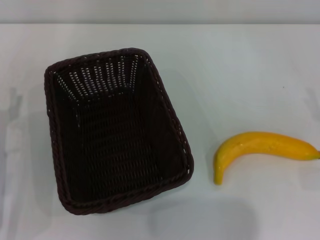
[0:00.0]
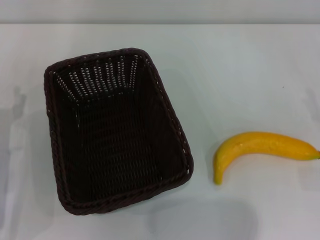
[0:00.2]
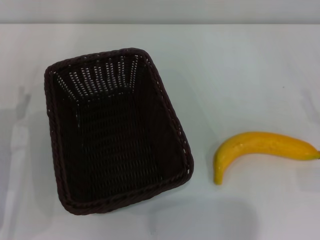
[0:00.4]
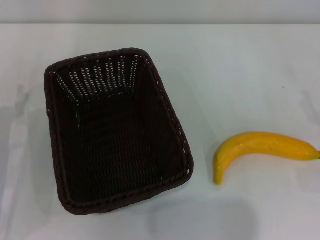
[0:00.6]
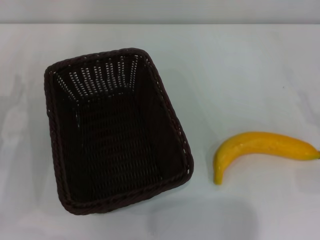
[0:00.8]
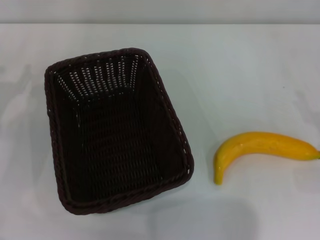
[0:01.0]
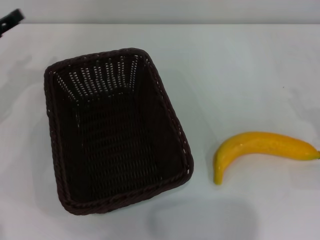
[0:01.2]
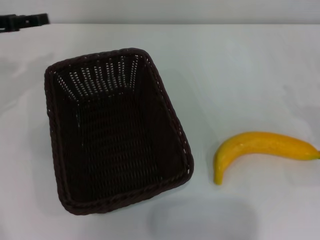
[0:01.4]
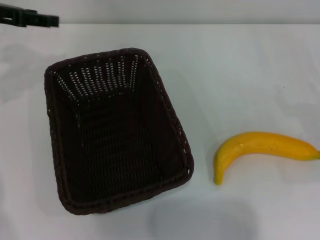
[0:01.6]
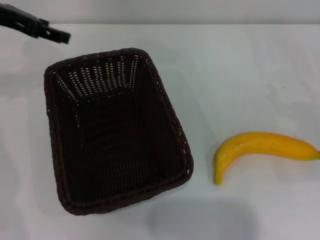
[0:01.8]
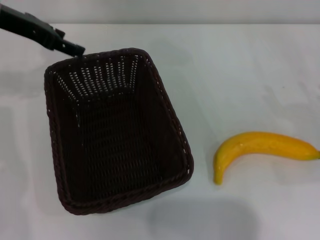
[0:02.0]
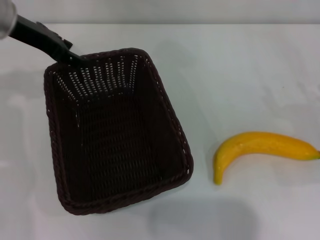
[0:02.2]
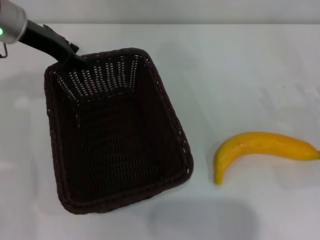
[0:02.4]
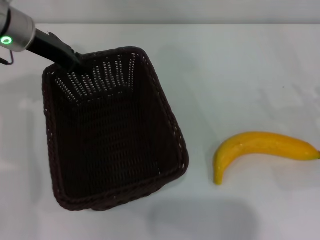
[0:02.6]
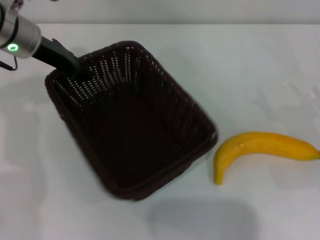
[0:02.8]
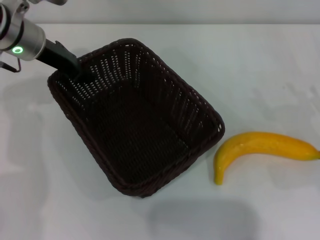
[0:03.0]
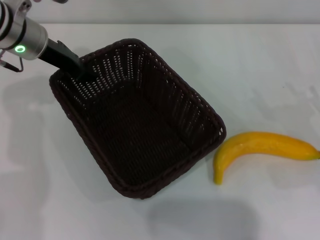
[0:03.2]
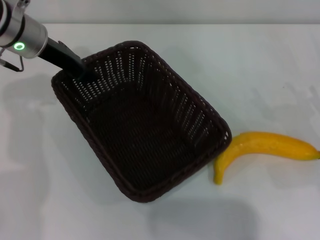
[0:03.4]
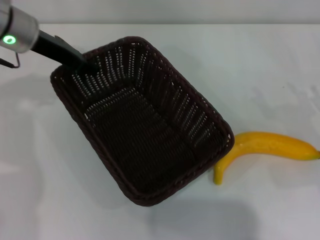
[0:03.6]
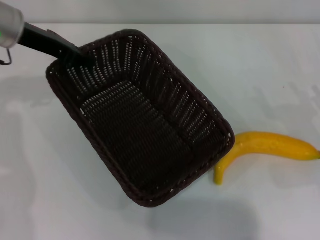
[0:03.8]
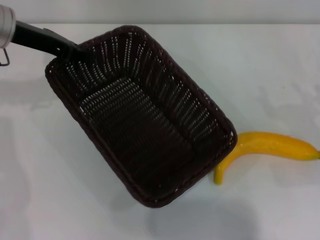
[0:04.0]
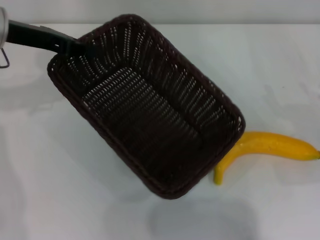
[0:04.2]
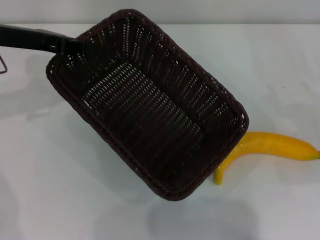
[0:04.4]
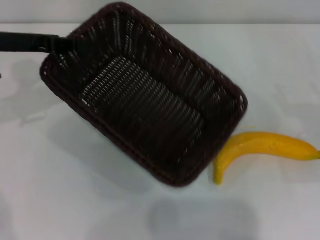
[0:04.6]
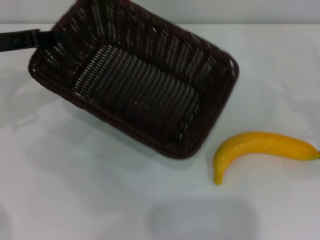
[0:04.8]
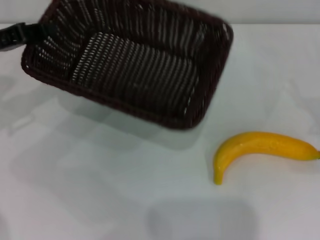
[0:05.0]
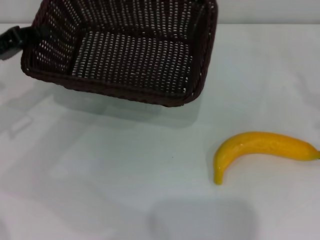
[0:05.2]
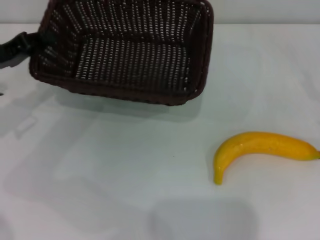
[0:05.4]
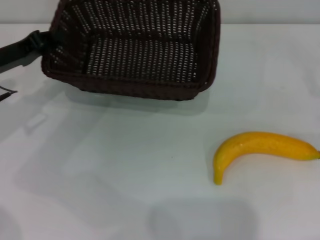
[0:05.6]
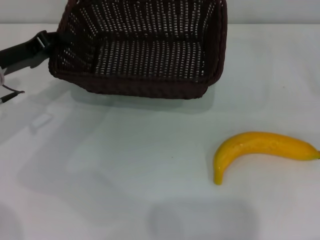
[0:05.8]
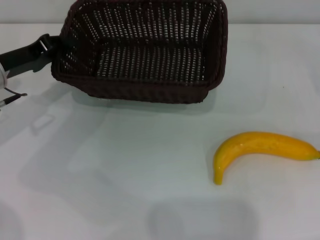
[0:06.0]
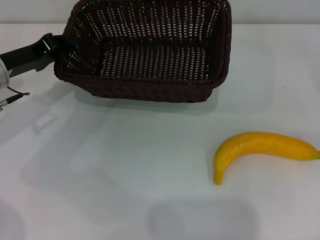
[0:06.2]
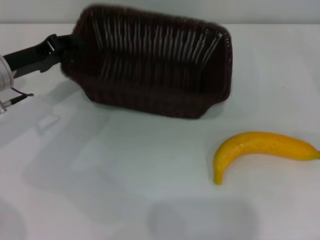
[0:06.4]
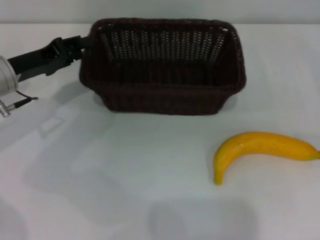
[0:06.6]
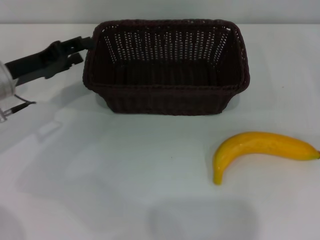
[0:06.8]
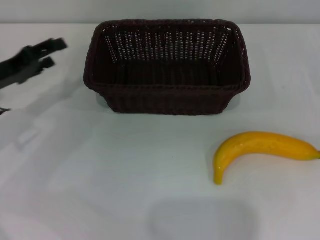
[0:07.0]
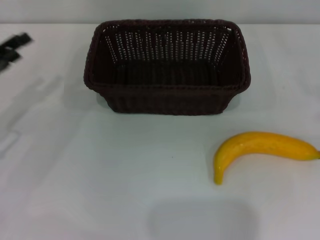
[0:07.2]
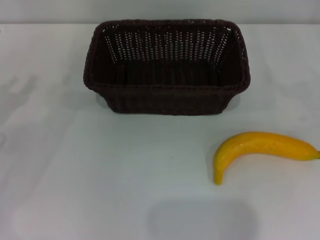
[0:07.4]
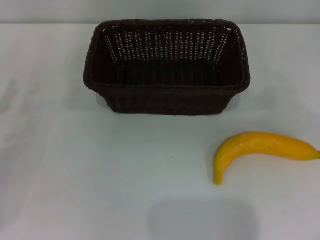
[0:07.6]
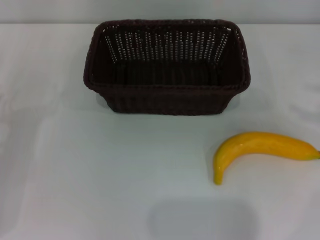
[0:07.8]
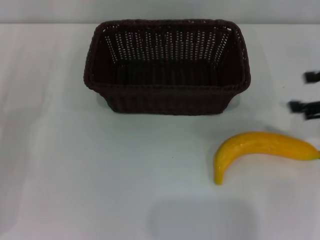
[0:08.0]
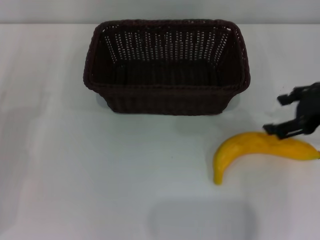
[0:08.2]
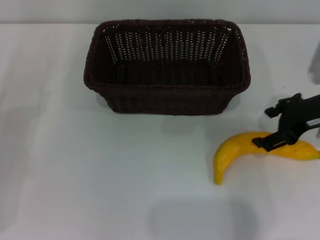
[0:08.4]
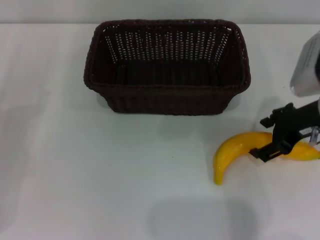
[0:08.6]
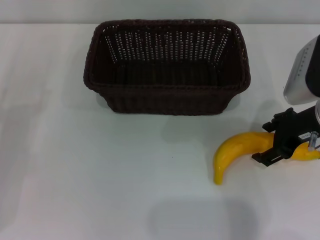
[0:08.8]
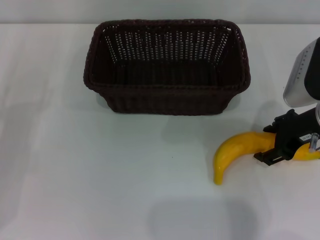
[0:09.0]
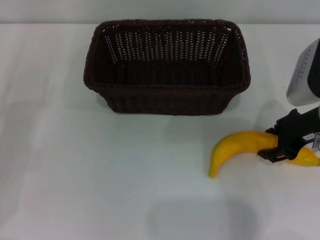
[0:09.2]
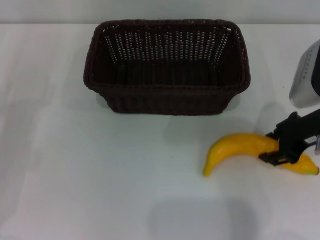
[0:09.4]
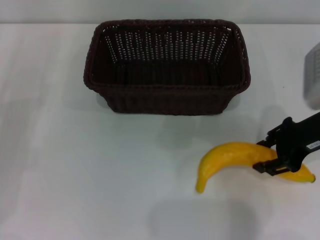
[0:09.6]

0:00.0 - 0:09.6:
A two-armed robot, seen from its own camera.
Step, 0:00.0 - 0:04.0: Pick up the dark basket with the left gripper.
Step, 0:04.4 - 0:07.0: Place the dark basket in the center of view with the left gripper.
0:00.0 - 0:01.6: The left gripper goes about 25 cm upward and forward.
0:01.6 - 0:03.2: The left gripper heads to the right, covering approximately 10 cm, and closes its fingers.
0:03.2 - 0:04.8: The left gripper shifts some 10 cm to the left and backward.
0:04.8 - 0:06.4: The right gripper is displaced to the right by about 5 cm. The left gripper is displaced downward by some 5 cm.
0:06.4 - 0:08.0: The left gripper shifts roughly 15 cm backward, to the left and downward, and opens up. The right gripper moves upward and to the left, roughly 15 cm.
0:08.0 - 0:09.6: The right gripper shifts some 10 cm to the left, and closes up.

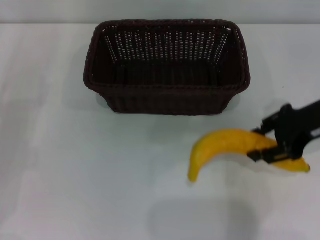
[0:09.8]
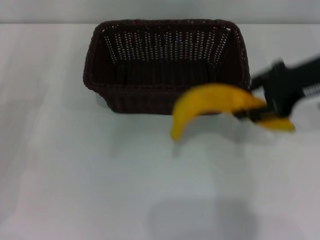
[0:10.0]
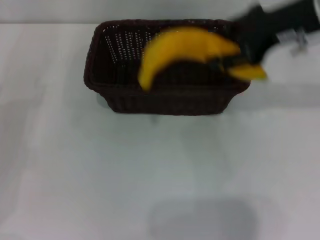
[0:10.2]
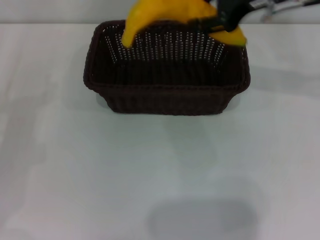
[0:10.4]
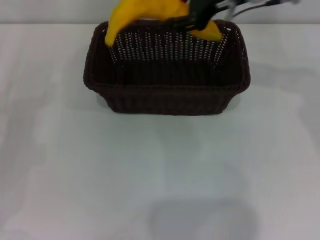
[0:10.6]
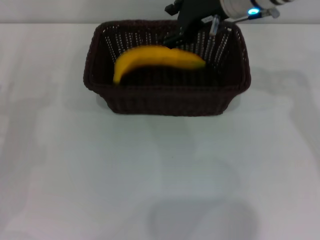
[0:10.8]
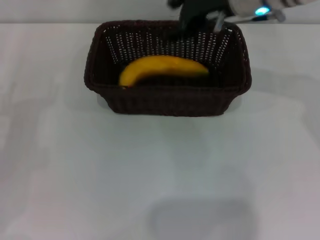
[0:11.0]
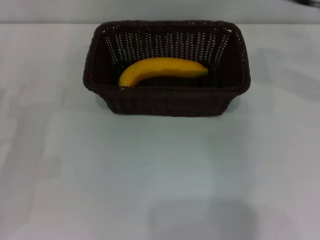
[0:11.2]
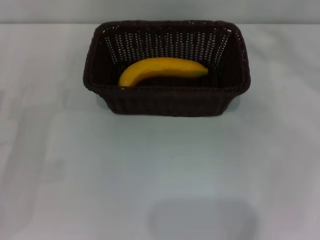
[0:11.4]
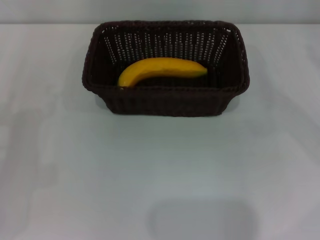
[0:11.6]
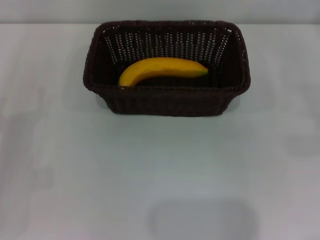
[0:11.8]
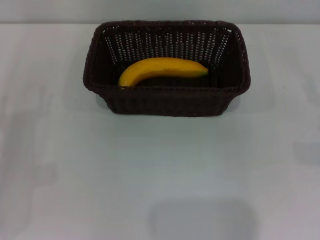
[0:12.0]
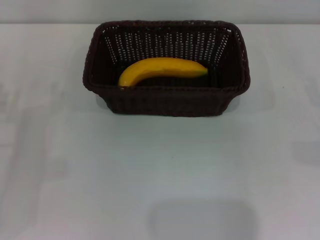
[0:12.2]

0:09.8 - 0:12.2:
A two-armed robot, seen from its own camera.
Step, 0:09.8 - 0:10.8: Place the banana into the dark basket with the right gripper.
0:09.8 - 0:11.0: The right gripper moves to the left, forward and upward, some 15 cm, and opens.
0:11.0 - 0:12.2: The right gripper travels to the right, downward and backward by about 35 cm.
